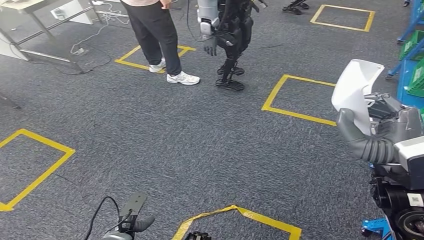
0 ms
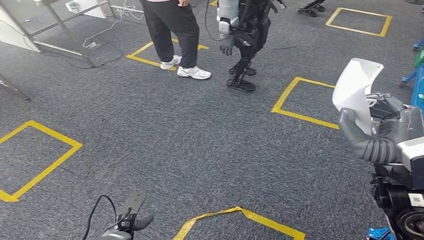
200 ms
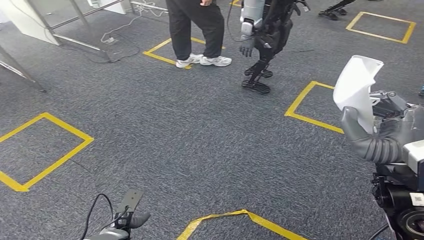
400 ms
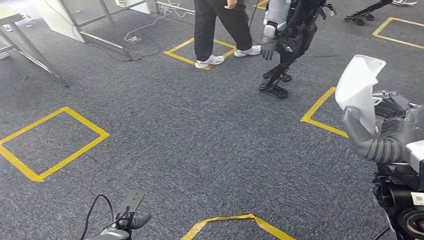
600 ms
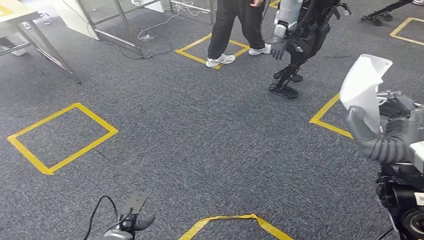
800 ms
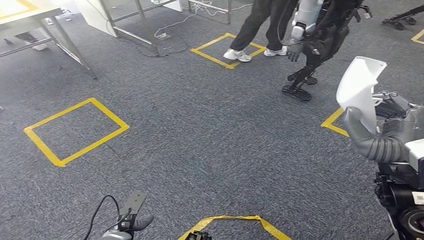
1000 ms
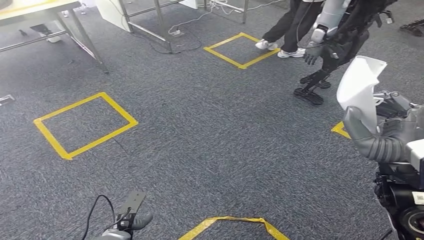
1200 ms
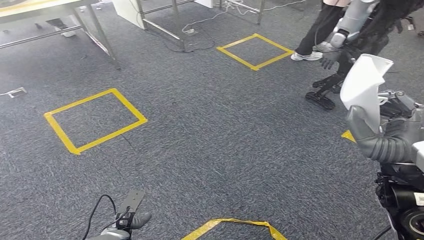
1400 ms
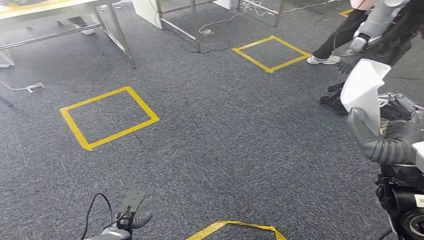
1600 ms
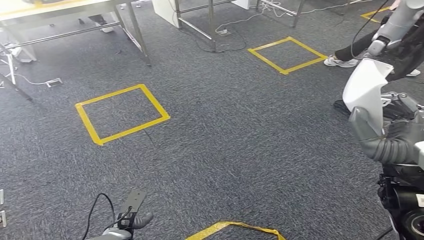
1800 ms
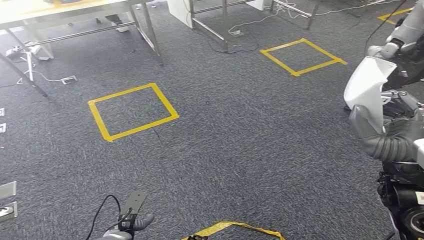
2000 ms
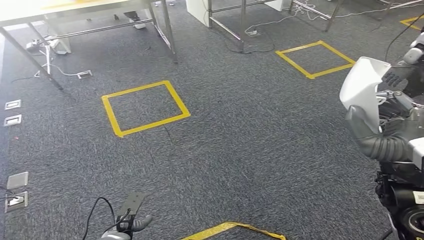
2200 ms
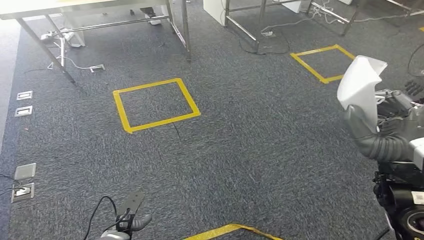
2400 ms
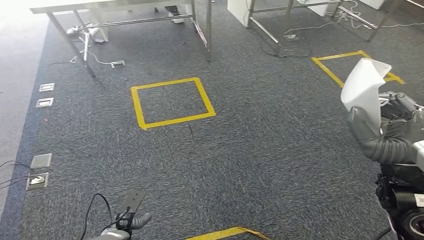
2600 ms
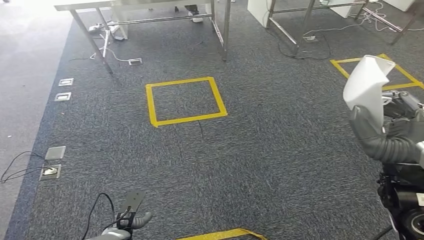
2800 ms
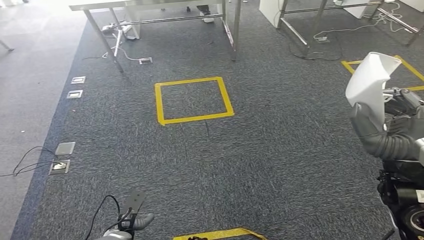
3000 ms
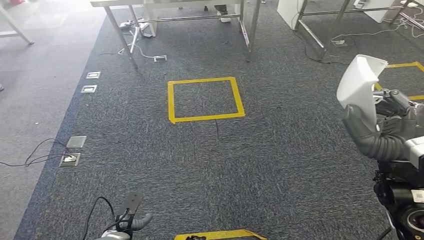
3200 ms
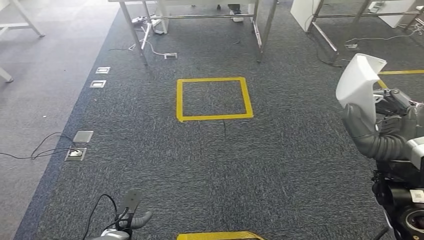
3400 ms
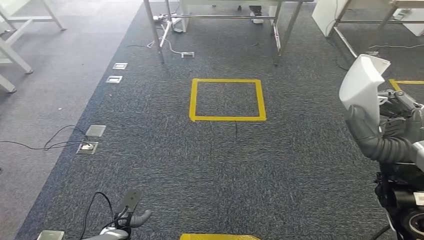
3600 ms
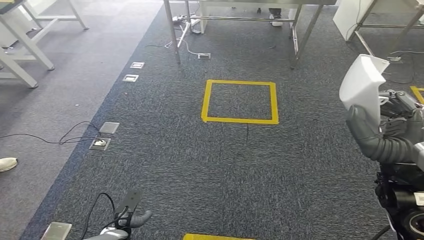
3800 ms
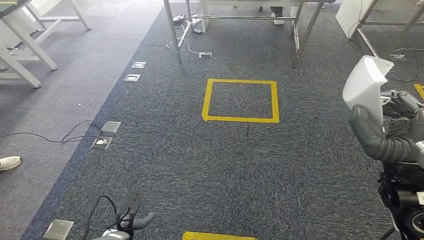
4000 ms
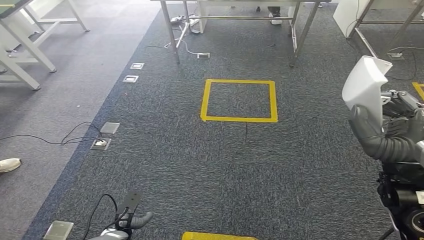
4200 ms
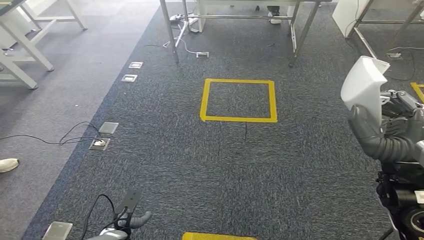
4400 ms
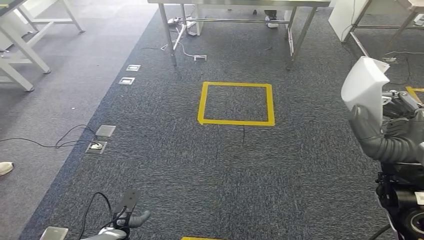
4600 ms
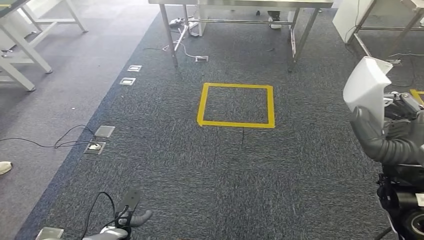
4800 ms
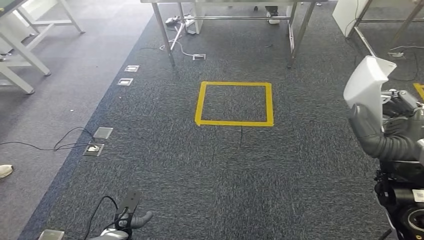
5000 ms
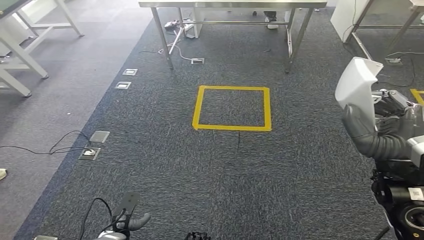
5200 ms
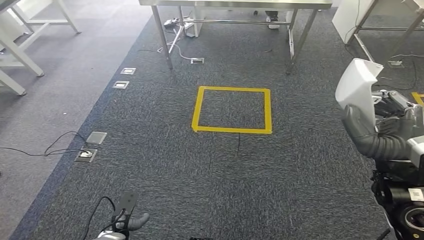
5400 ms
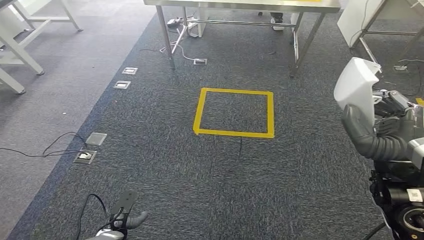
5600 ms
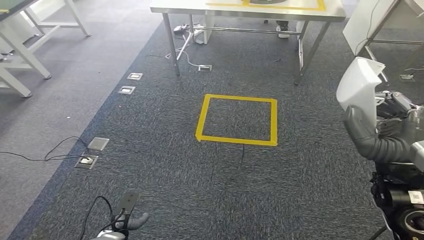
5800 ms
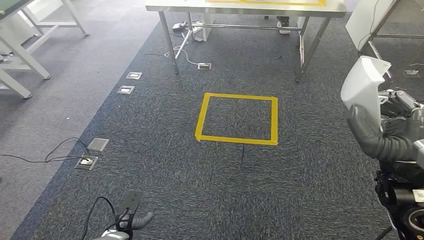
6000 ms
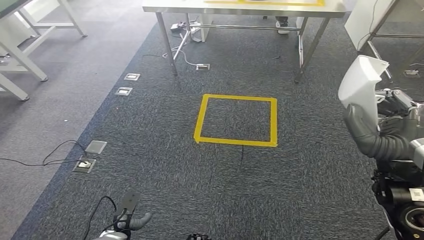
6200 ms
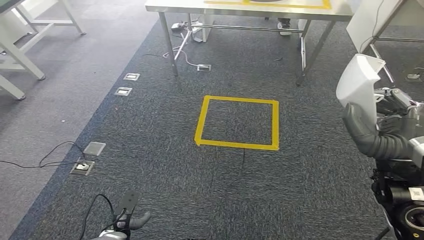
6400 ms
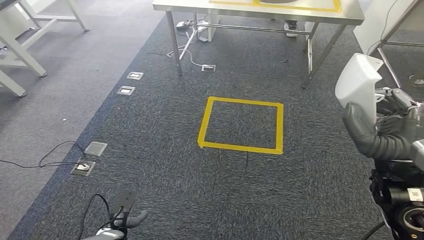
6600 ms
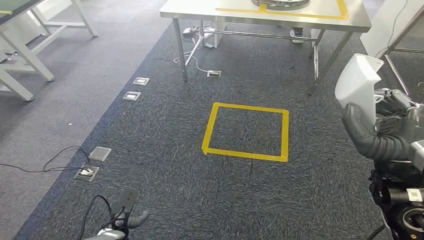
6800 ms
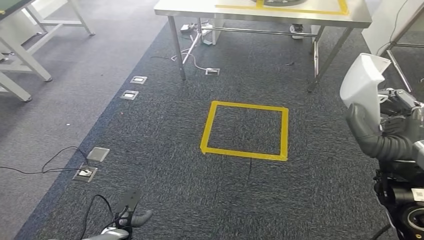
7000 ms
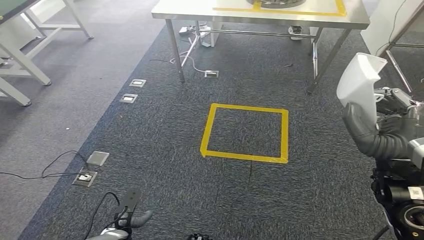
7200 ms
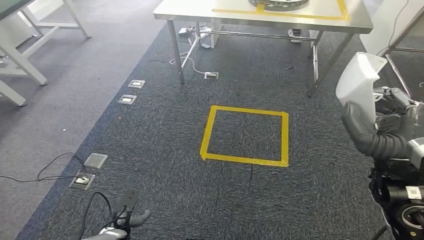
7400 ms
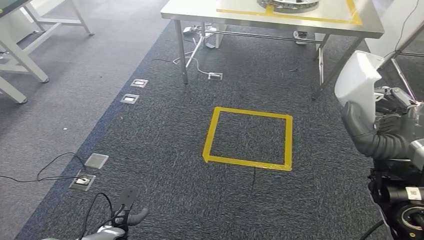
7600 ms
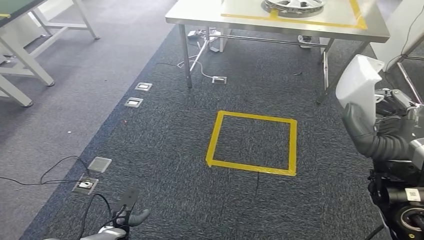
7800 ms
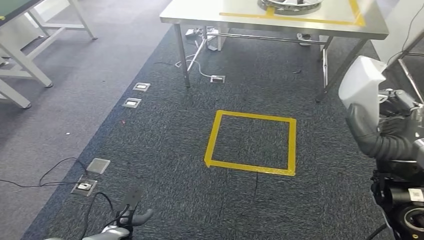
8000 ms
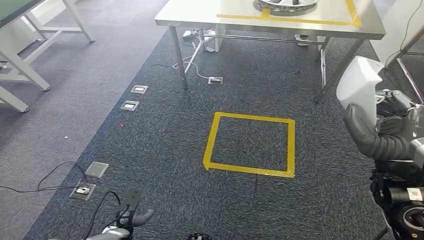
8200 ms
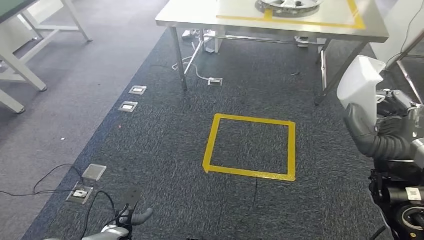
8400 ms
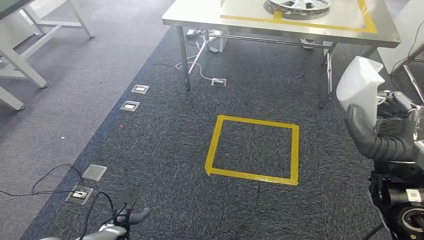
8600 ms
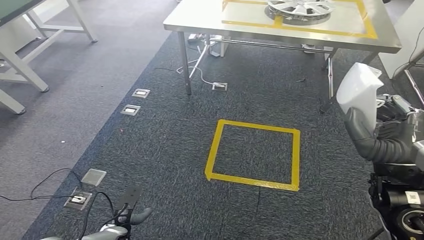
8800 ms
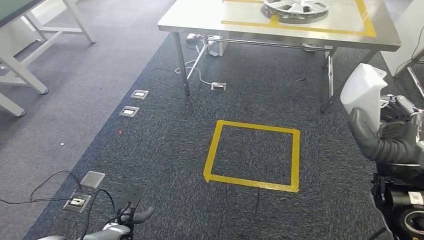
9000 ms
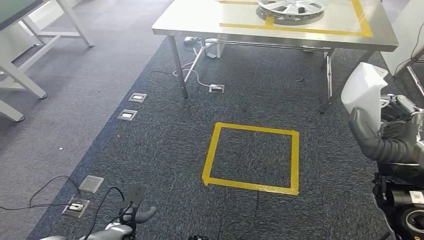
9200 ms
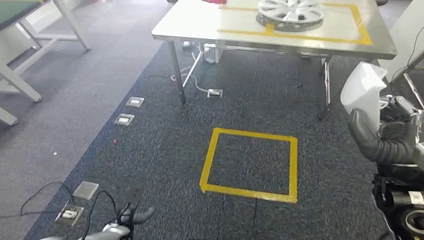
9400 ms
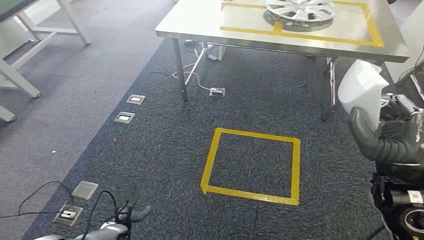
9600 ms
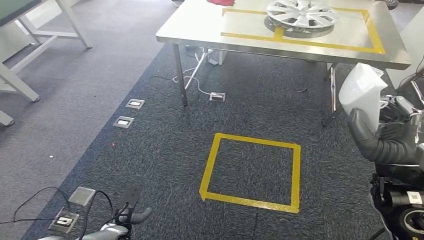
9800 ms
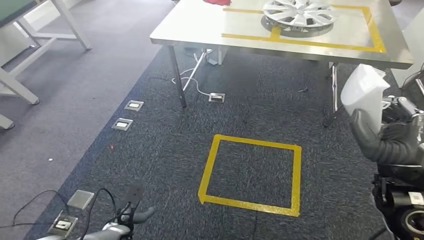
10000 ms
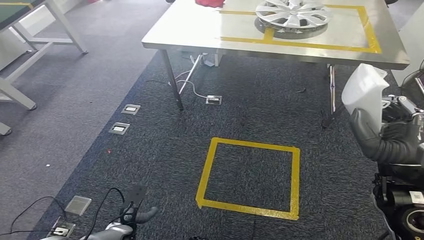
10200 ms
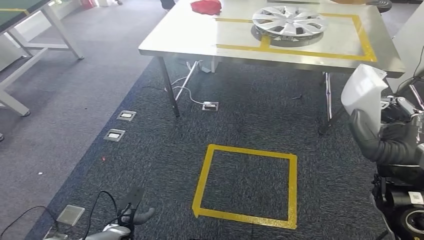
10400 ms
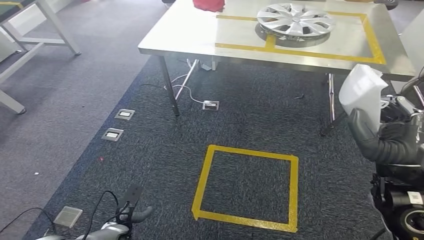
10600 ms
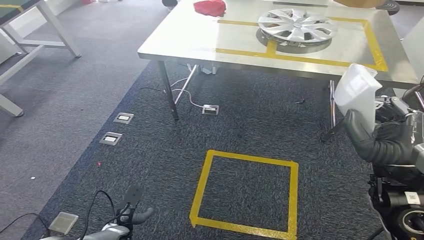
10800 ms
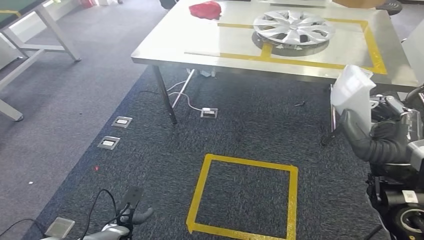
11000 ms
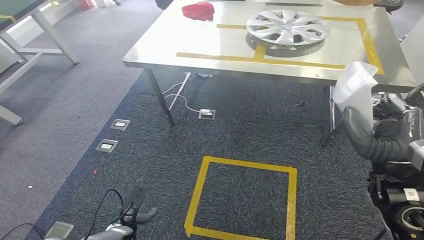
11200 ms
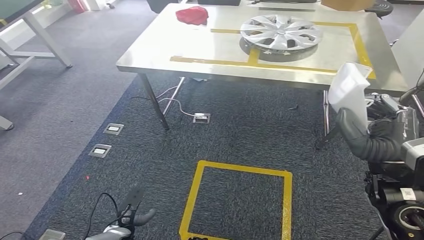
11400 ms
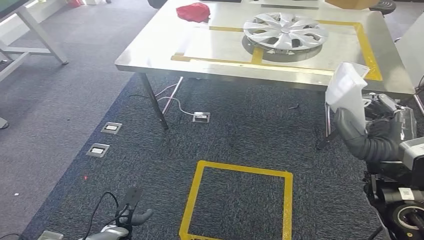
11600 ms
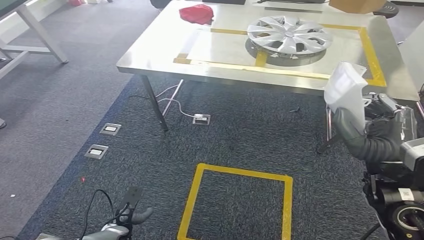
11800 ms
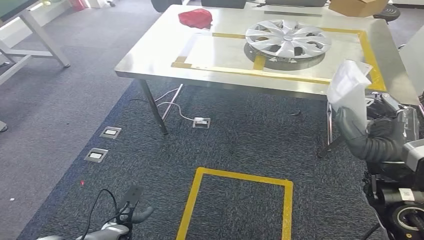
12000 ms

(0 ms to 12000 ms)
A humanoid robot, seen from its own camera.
4400 ms - 6000 ms: Both hands stay put.

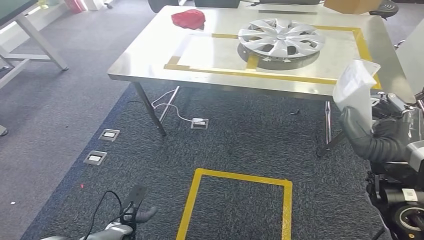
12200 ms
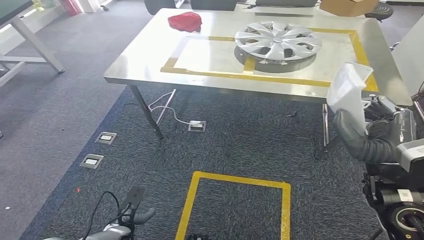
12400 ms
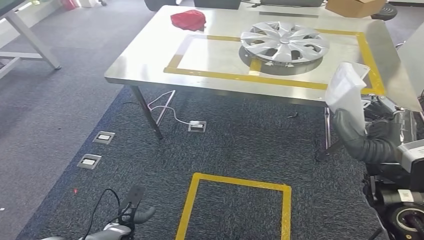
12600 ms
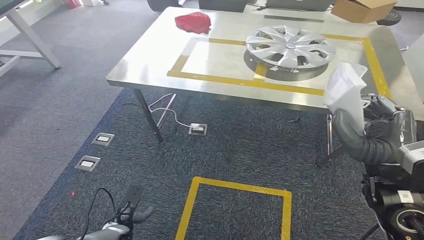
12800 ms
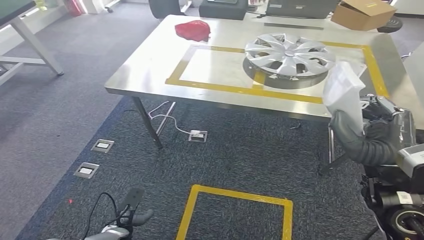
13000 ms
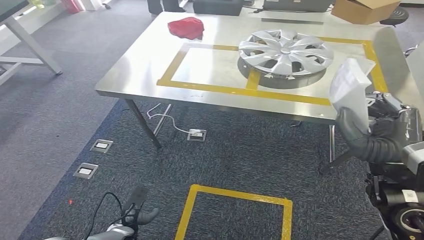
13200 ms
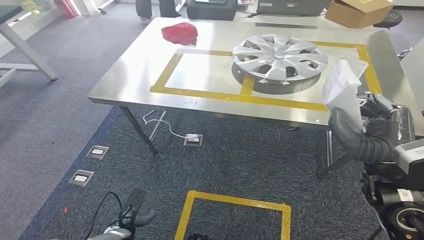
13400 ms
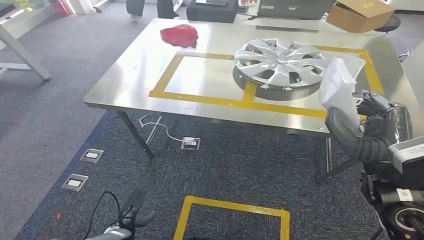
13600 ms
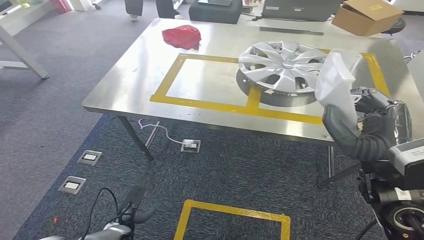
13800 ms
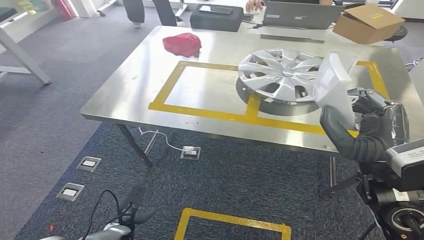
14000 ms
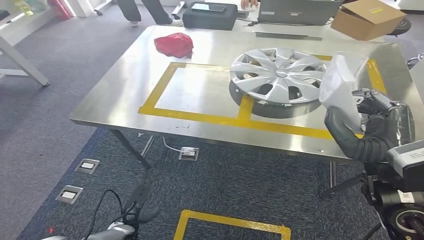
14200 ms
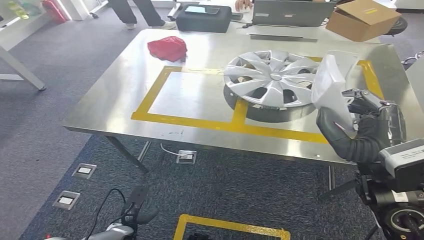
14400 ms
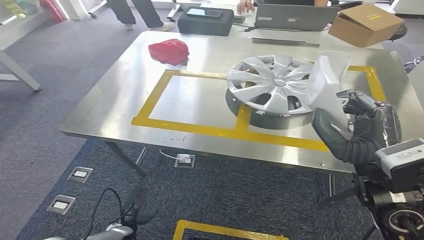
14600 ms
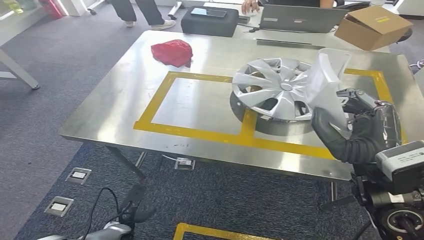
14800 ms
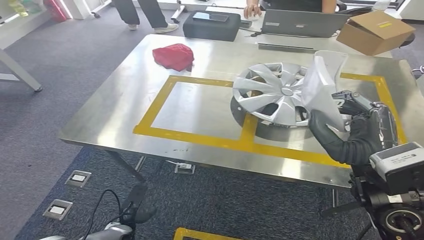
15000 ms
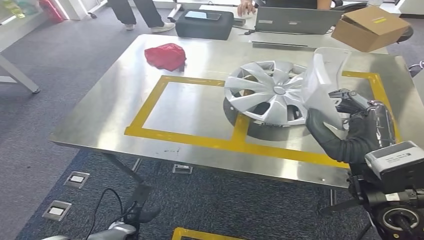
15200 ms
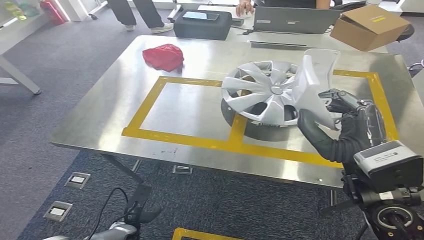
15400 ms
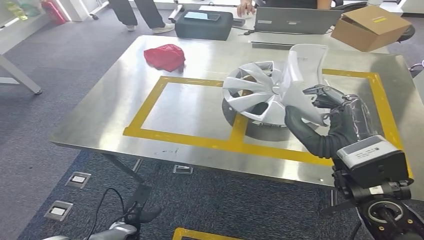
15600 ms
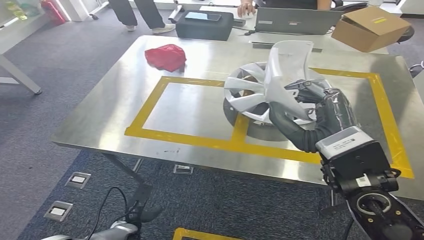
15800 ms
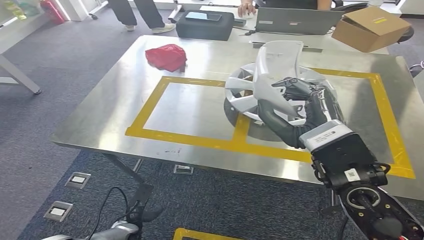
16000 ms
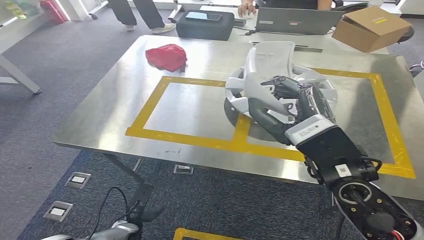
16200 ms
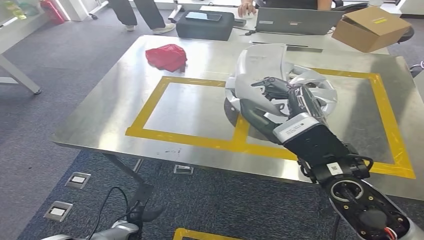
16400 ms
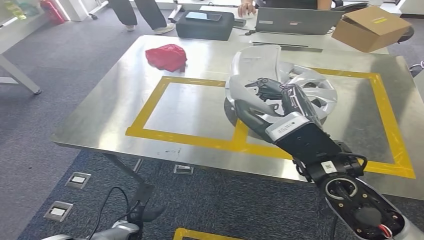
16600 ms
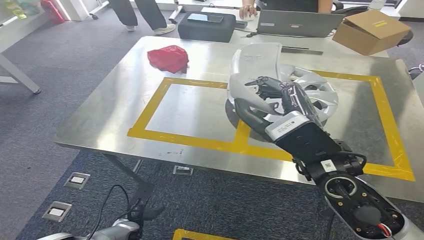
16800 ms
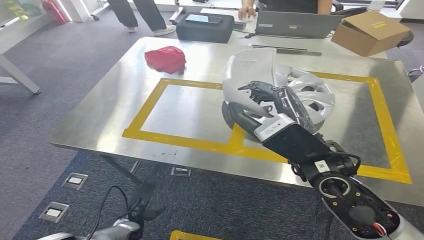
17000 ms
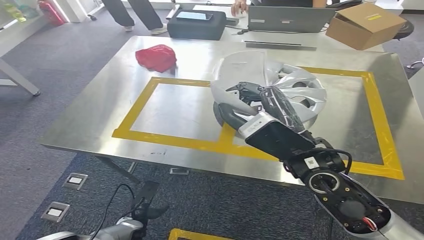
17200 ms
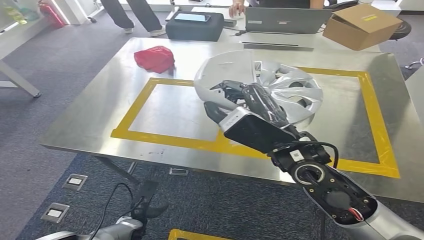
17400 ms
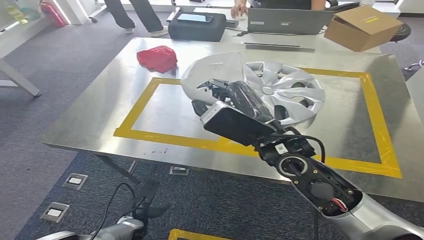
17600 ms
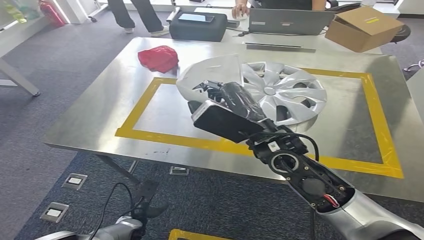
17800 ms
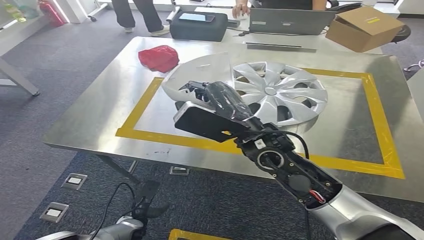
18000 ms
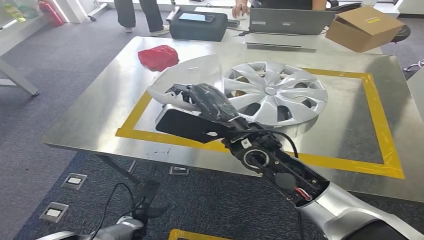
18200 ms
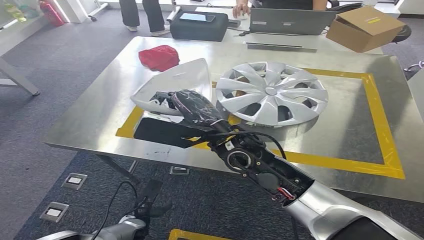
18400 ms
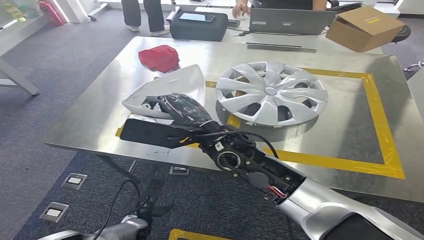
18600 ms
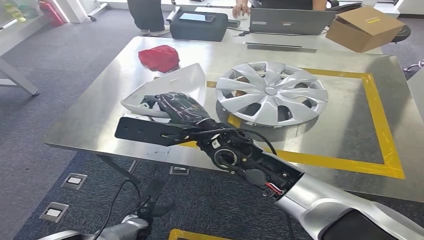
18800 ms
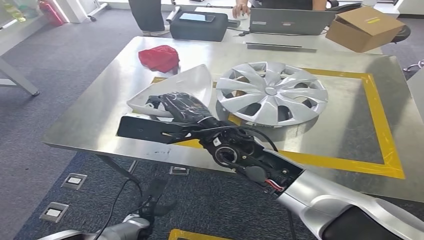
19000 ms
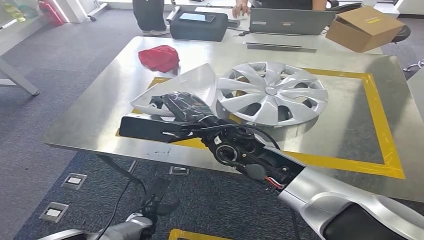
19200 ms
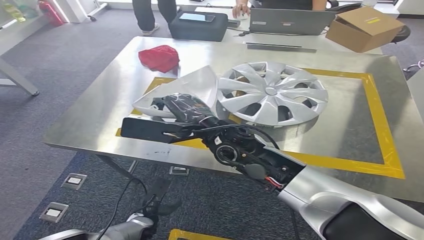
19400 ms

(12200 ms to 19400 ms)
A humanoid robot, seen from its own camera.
18000 ms - 19400 ms: The right hand moves to the left and forward, approximately 15 cm.
